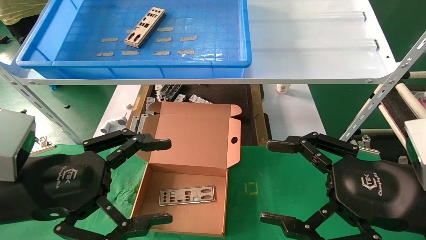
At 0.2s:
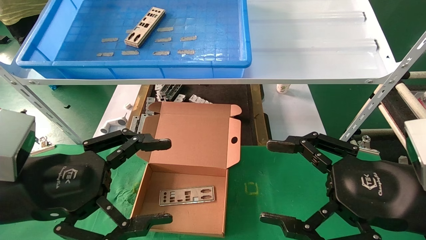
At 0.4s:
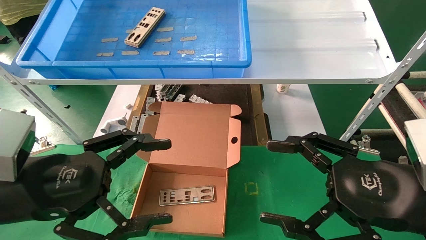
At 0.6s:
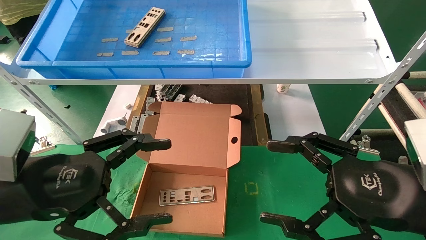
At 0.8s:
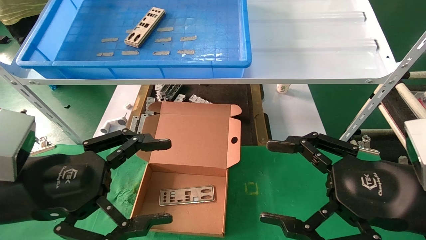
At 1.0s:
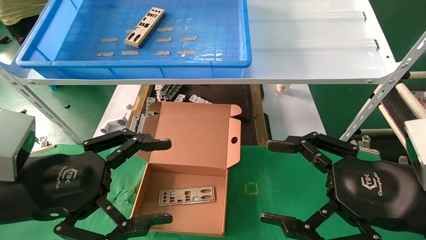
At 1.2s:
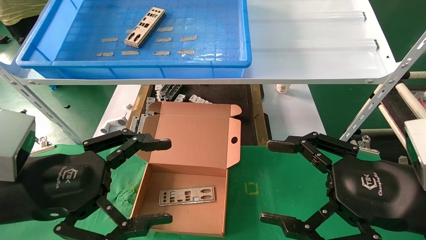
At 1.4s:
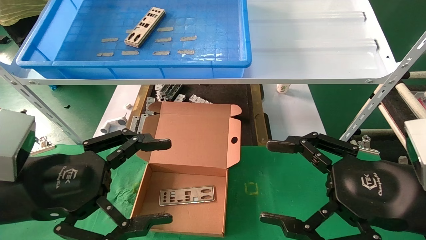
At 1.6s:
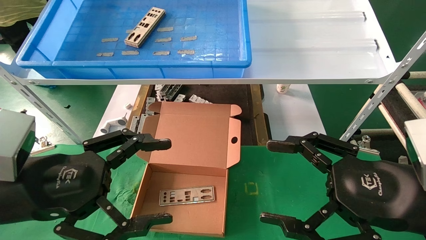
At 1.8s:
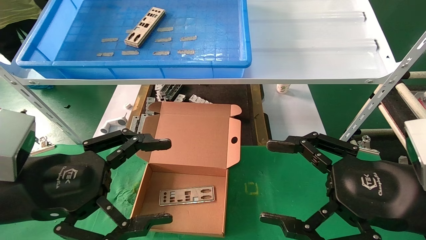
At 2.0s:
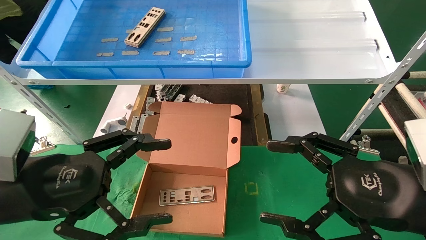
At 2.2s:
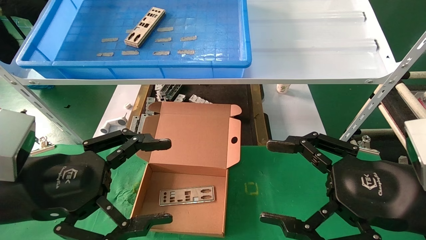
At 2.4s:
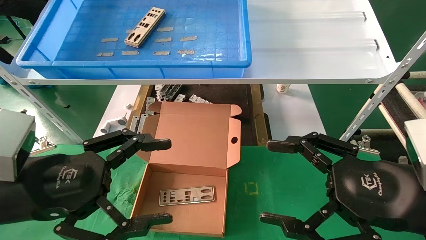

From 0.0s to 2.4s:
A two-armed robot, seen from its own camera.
Task of the whole recording: pick up the parts on the tray and put them in the cardboard box.
From 0.0s to 2.4s: Both grippers stay put.

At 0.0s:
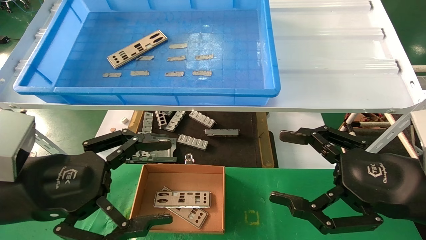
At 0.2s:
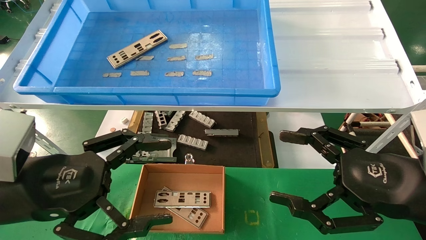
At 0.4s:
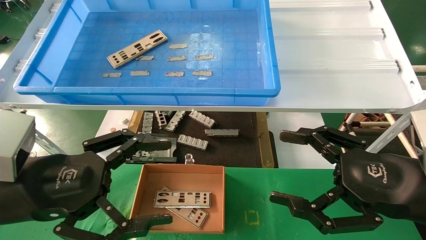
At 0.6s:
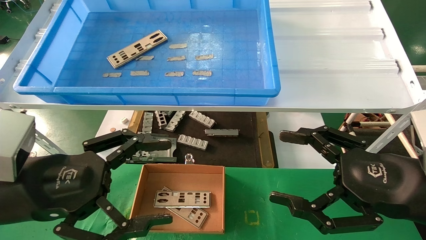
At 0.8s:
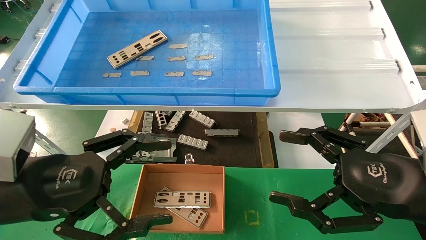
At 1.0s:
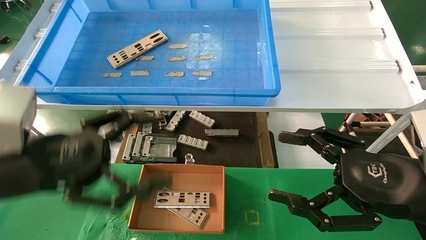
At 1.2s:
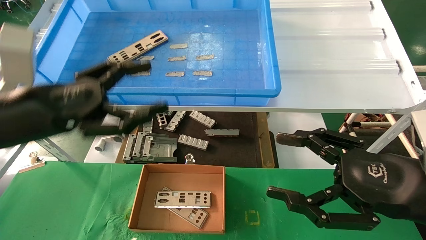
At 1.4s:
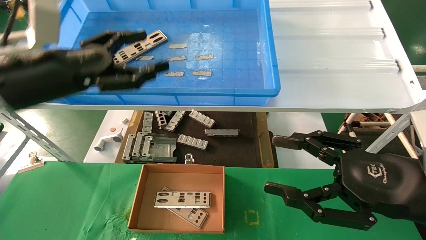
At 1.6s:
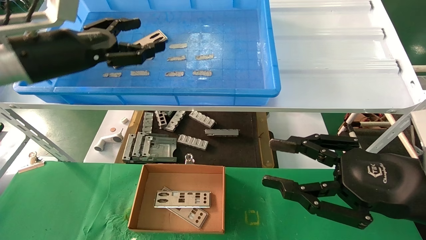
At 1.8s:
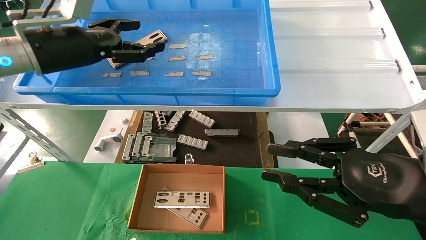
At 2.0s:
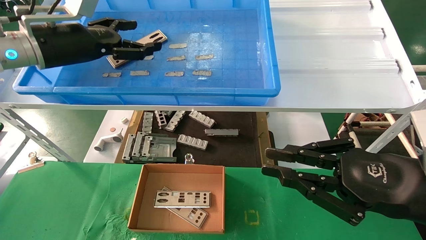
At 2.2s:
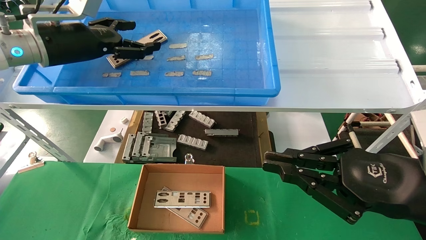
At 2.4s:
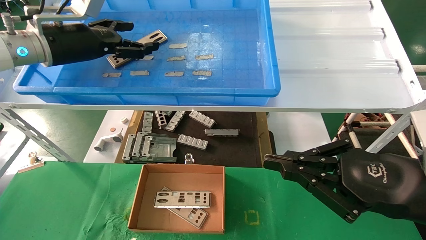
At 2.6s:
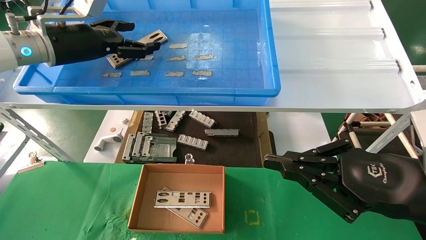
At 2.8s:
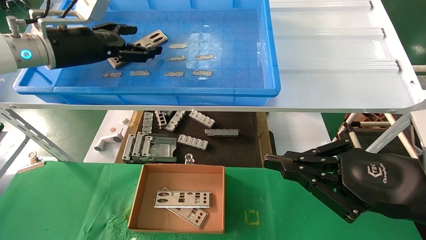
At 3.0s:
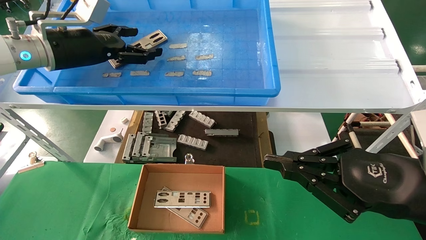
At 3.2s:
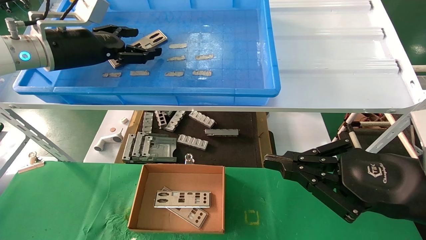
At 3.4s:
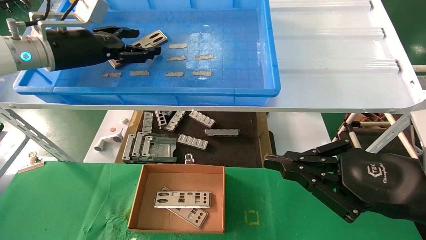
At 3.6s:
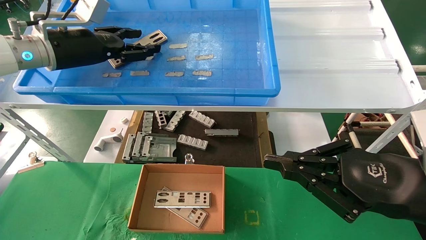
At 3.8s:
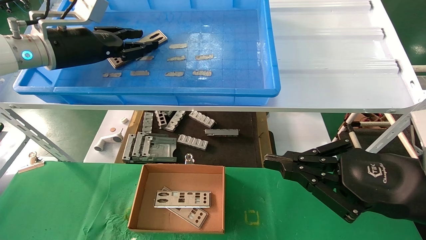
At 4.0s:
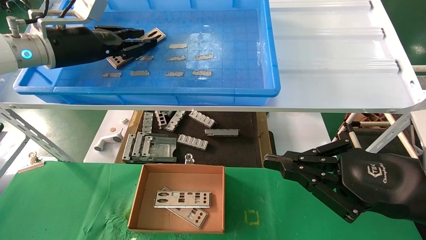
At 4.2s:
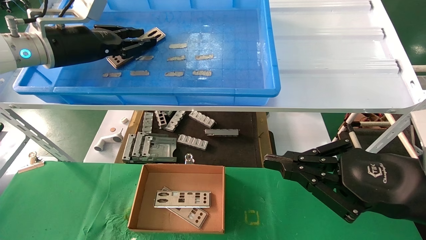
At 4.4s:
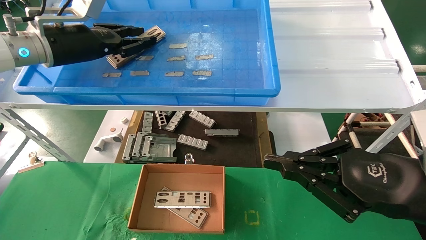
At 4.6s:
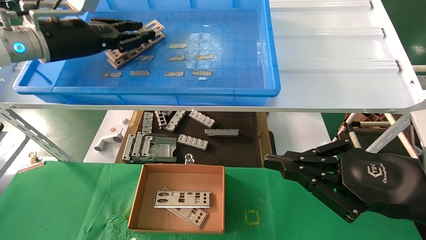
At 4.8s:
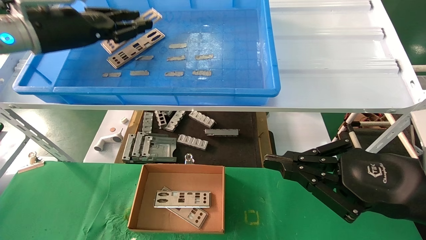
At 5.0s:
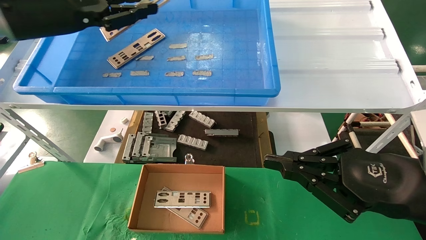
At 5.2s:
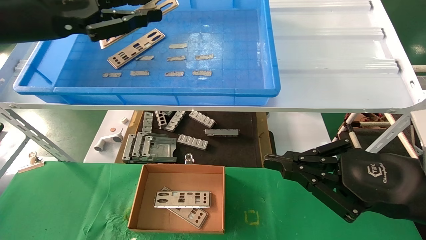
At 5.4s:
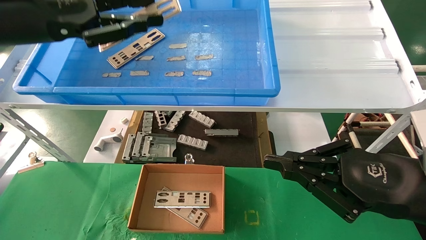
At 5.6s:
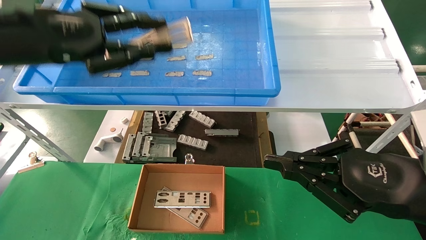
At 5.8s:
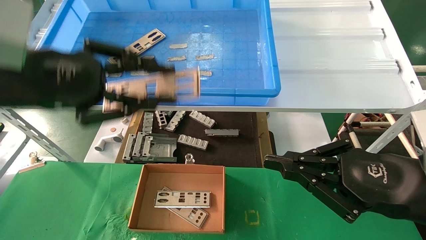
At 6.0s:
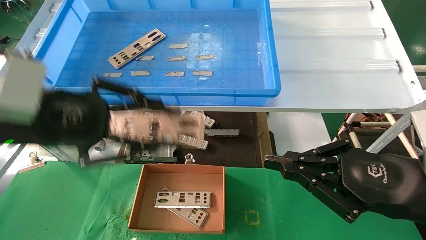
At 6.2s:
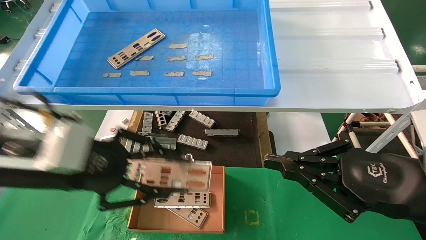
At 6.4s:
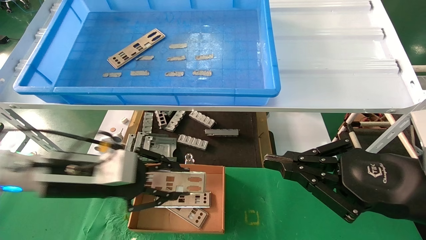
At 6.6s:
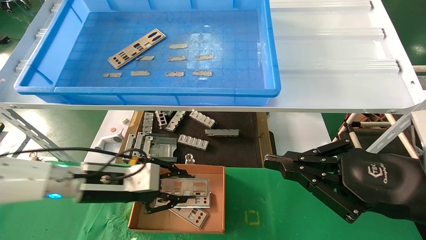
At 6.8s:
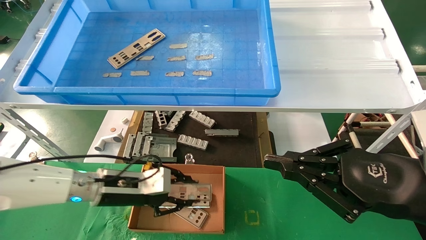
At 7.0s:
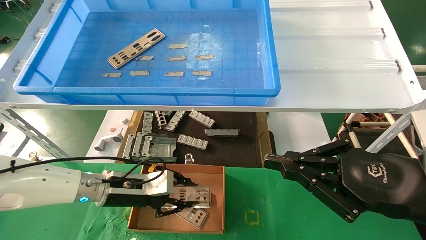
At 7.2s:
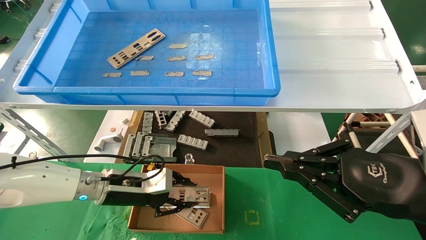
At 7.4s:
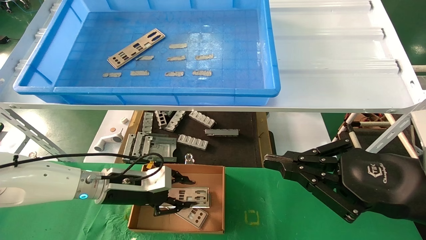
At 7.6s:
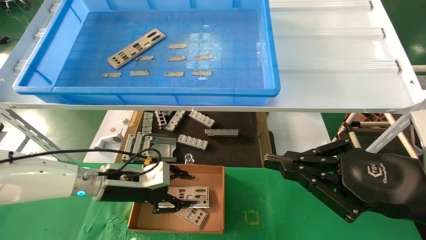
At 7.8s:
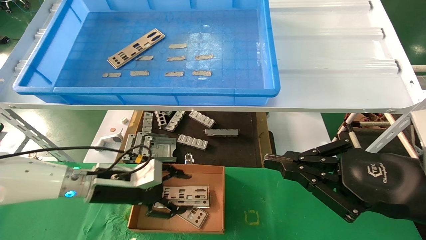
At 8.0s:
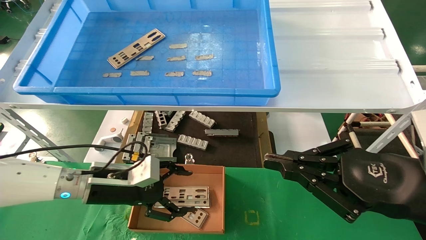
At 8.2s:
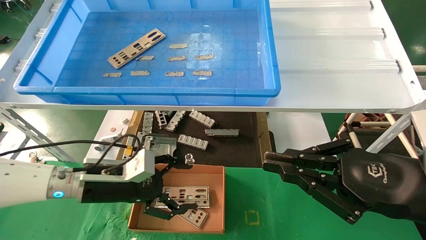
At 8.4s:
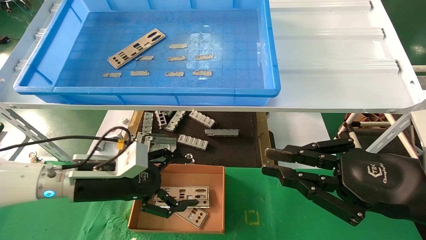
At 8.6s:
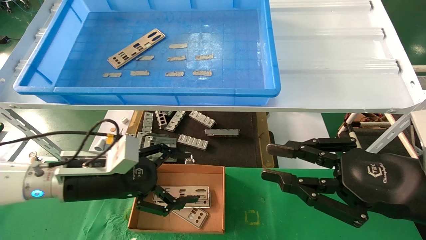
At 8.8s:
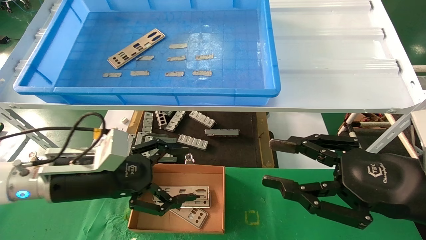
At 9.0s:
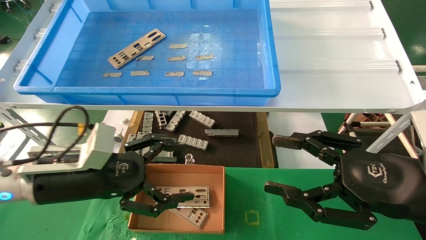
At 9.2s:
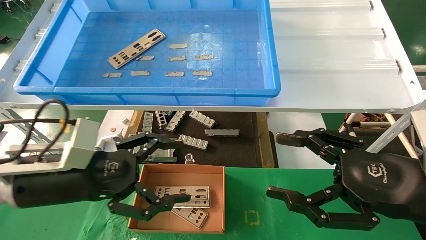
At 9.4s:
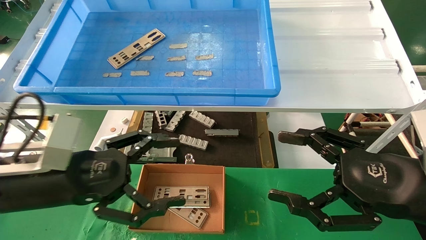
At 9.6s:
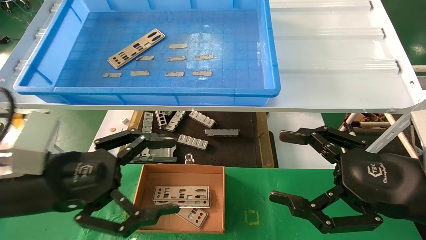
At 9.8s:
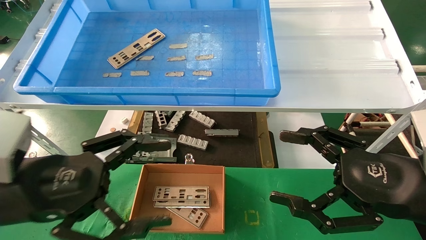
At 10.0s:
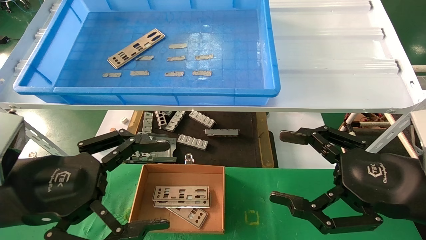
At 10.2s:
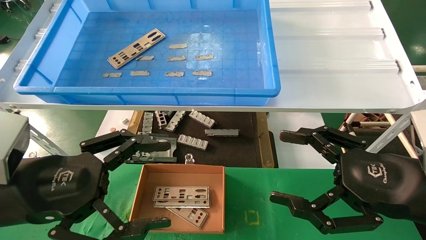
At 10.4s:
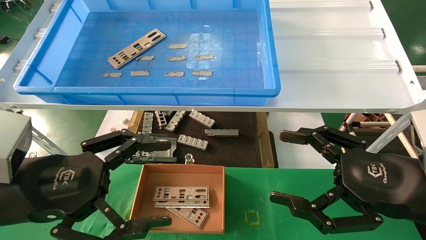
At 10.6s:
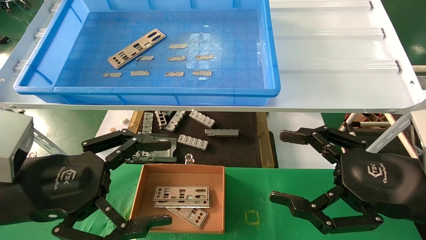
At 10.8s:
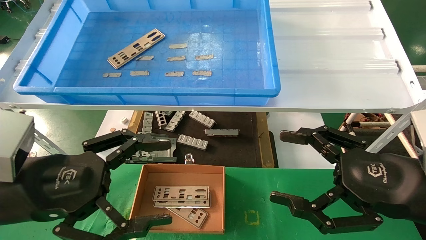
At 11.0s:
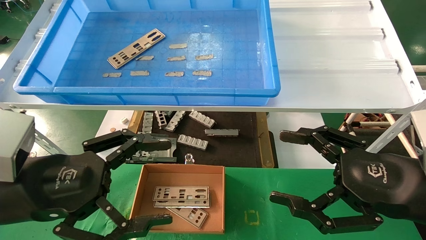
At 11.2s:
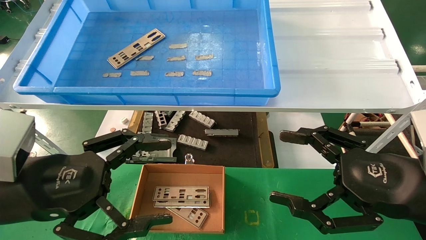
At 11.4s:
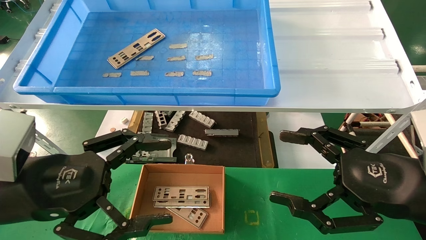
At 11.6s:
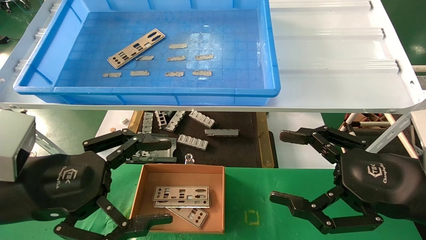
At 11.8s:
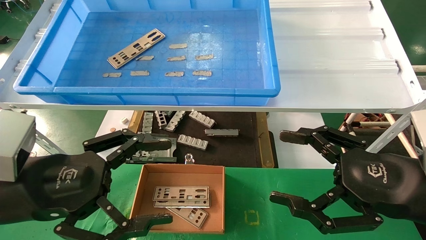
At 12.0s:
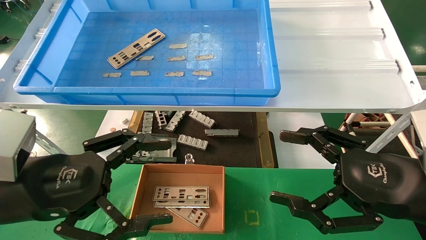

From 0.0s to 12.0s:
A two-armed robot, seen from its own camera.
Task of the whole recording: pick up the parts on the tray and put them in the cardboard box.
Step, from 1.0s to 4.0s: Pick up the IO bracket from the container box.
Step, from 4.2s to 7.6s: Place the IO bracket into the ingredient slot.
From 0.0s to 1.6s: The left gripper moves forward and upward, roughly 20 cm. Meanwhile the right gripper closes its fingers.
From 1.6s to 3.0s: The left gripper moves forward, some 5 cm. The right gripper closes.
From 3.0s to 4.4s: The left gripper closes.
From 4.4s to 6.0s: The left gripper travels backward and downward by about 20 cm.
From 6.0s to 7.6s: The left gripper moves downward and forward, roughly 25 cm.
From 7.6s to 9.0s: The right gripper opens its fingers. Meanwhile the left gripper shifts roughly 15 cm backward and upward, and opens up.
From 9.0s to 10.4s: The left gripper goes roughly 10 cm backward; the right gripper opens up.
From 10.4s to 12.0s: Neither gripper changes place.

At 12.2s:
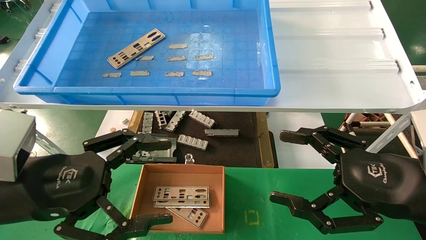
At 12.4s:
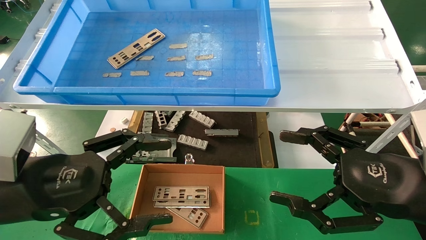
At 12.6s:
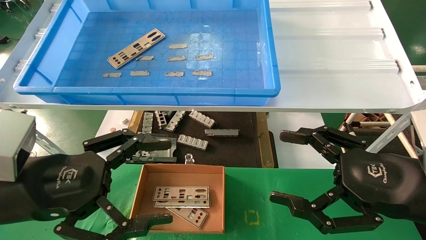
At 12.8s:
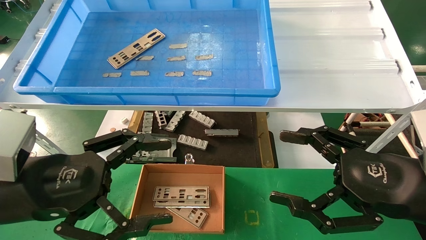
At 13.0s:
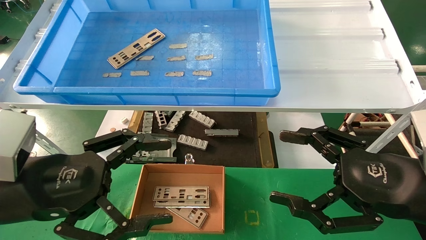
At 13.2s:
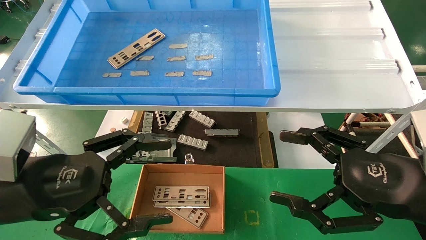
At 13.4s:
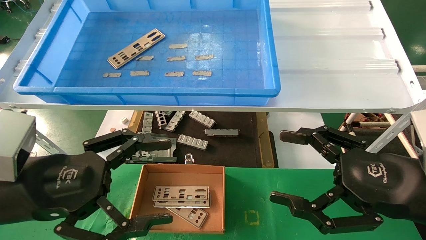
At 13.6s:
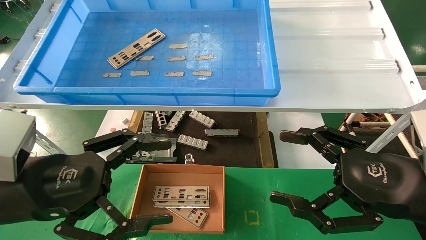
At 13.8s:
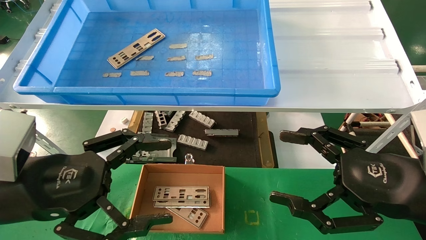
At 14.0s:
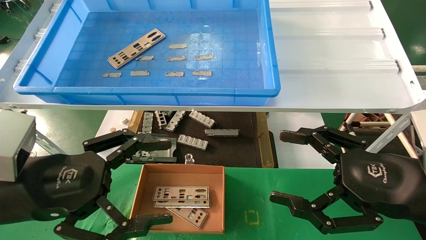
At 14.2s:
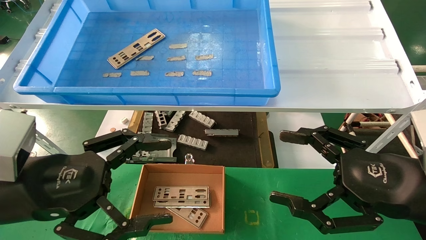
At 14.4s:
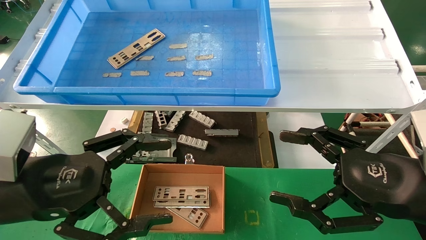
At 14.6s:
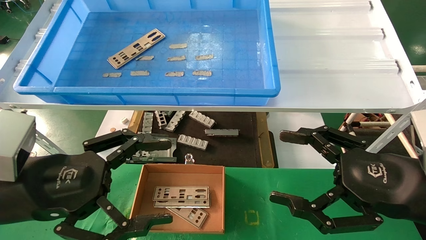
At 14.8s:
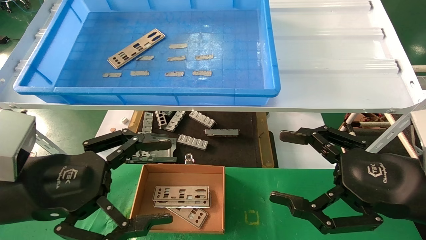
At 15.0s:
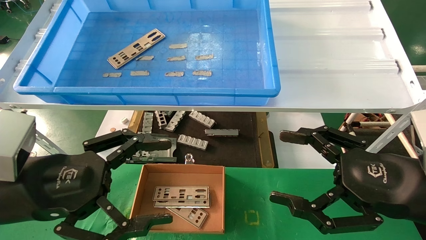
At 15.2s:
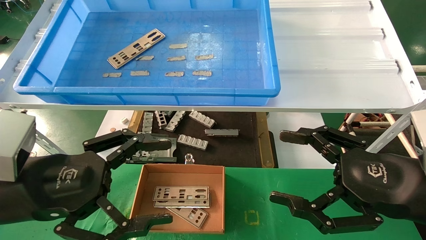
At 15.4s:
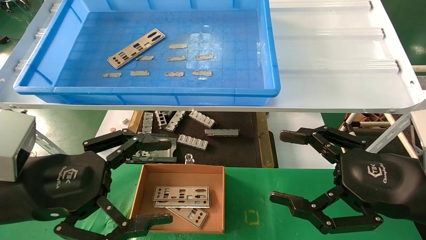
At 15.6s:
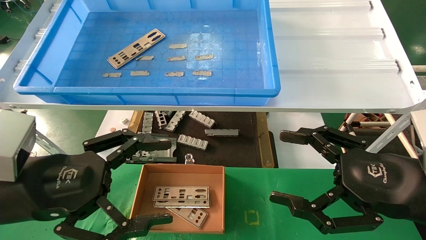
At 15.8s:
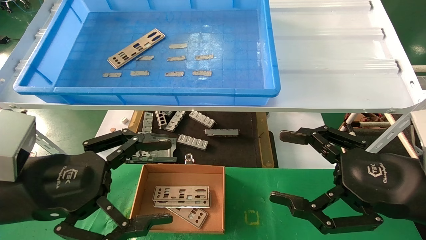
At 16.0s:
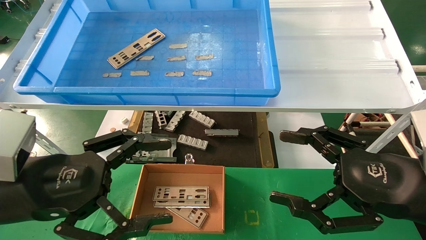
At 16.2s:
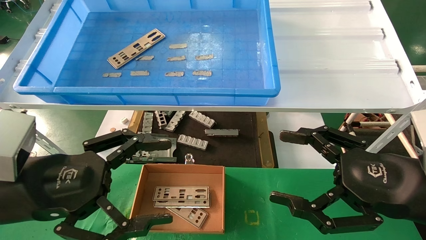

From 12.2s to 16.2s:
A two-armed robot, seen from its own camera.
Task of the whole recording: pick up the parts on the tray and put them in the cardboard box.
From 12.2s to 16.2s: Neither gripper changes place.
